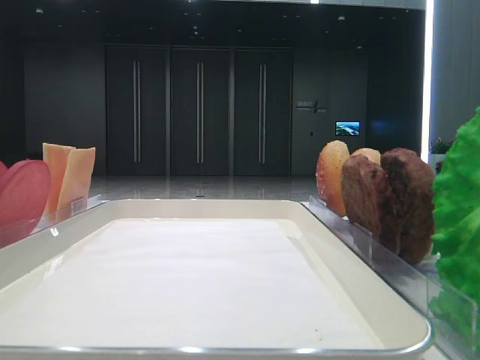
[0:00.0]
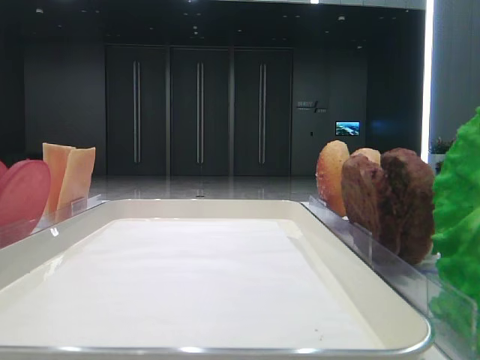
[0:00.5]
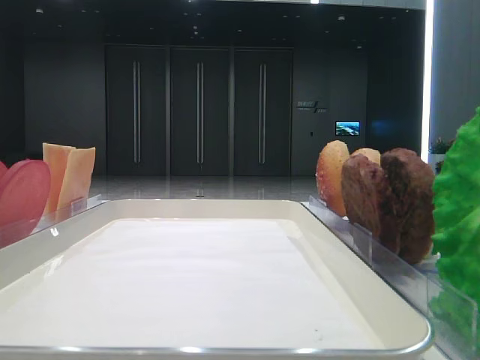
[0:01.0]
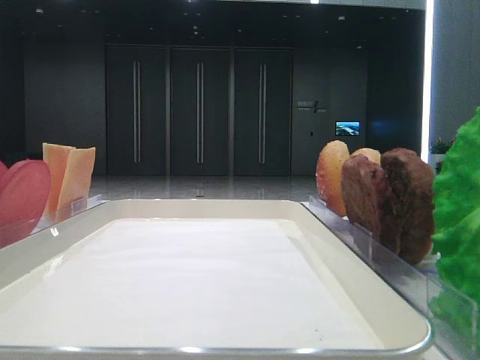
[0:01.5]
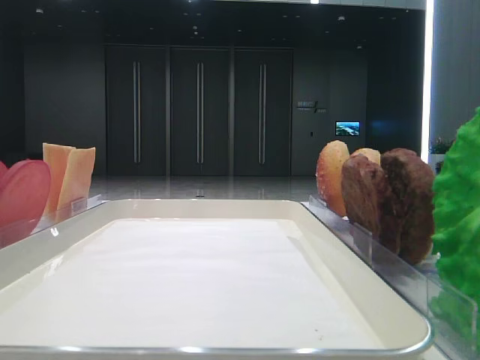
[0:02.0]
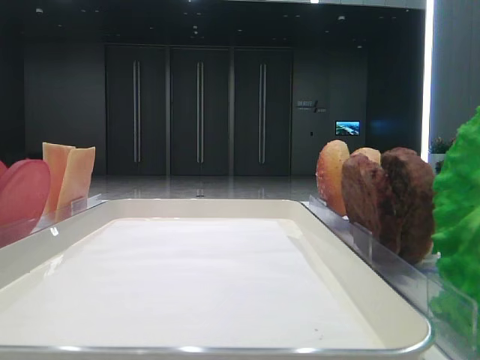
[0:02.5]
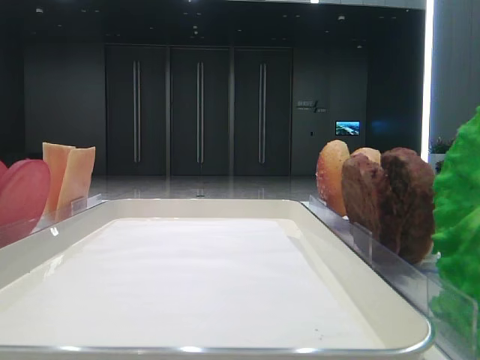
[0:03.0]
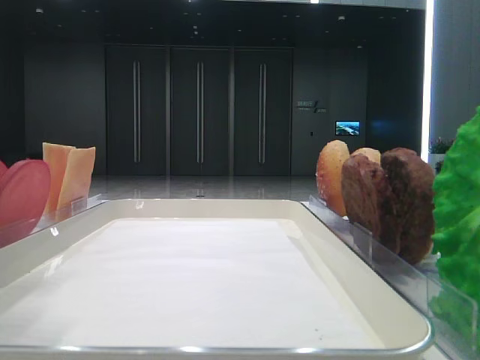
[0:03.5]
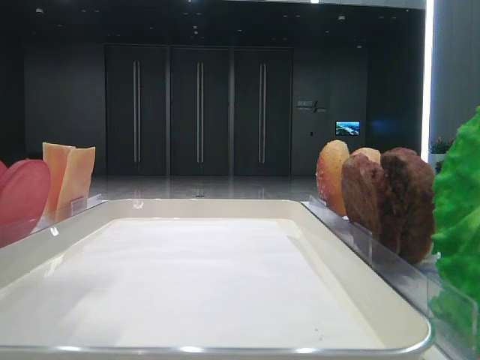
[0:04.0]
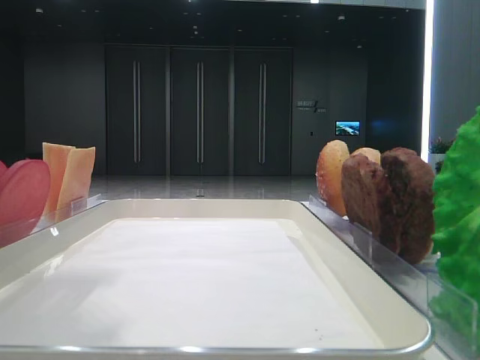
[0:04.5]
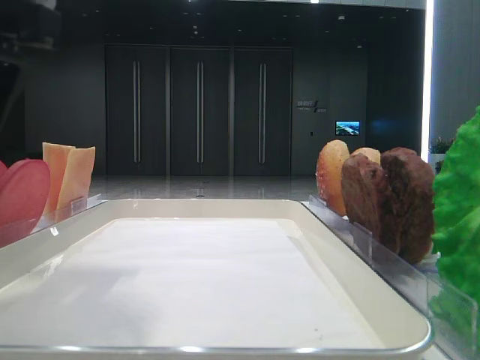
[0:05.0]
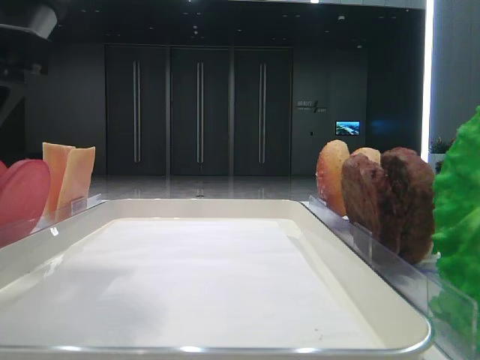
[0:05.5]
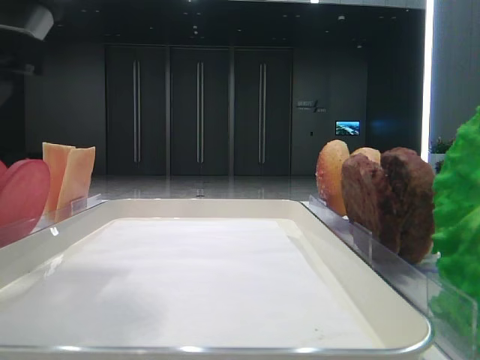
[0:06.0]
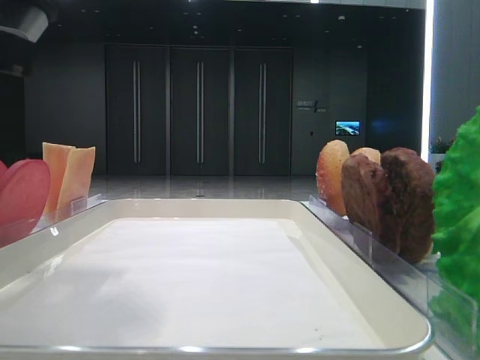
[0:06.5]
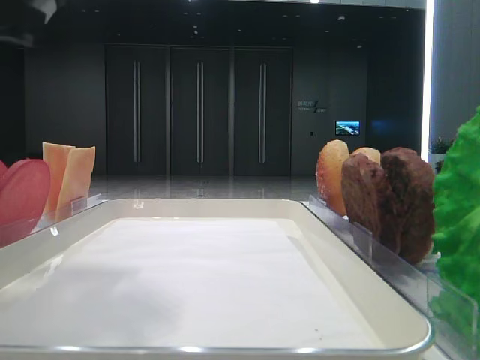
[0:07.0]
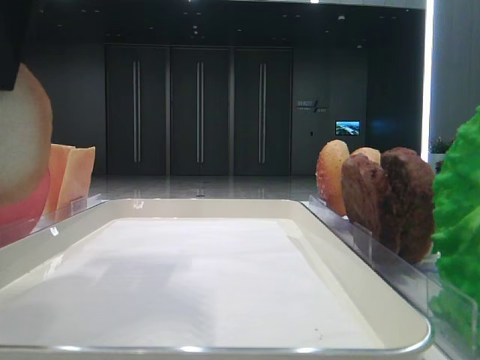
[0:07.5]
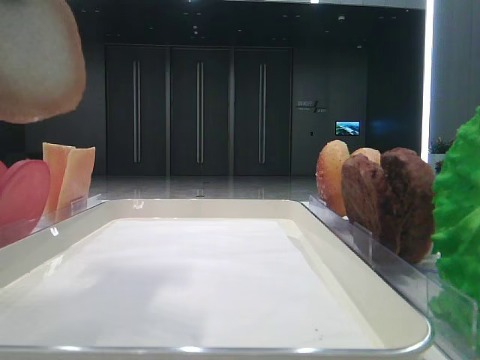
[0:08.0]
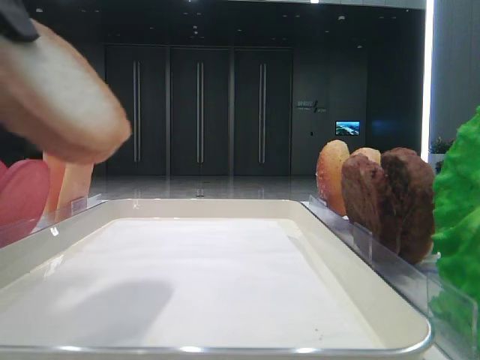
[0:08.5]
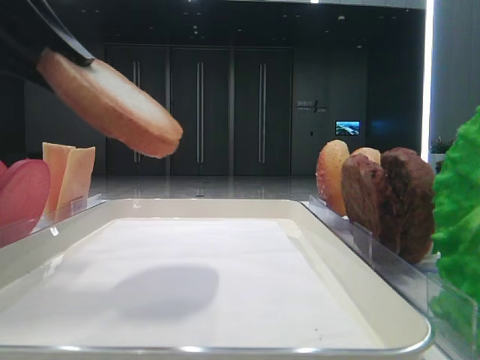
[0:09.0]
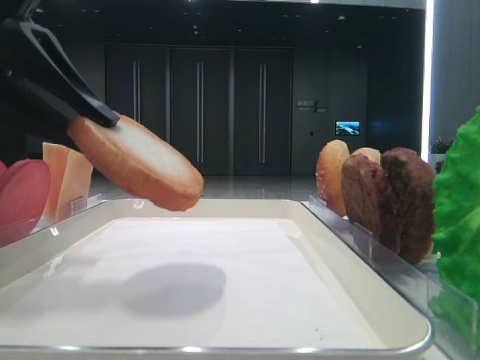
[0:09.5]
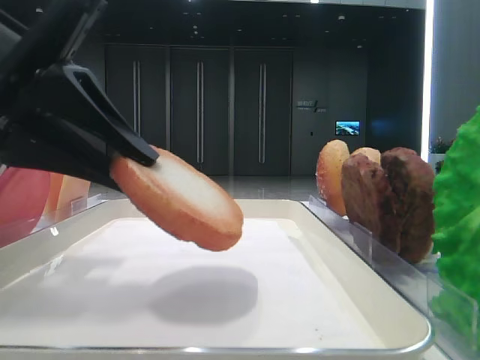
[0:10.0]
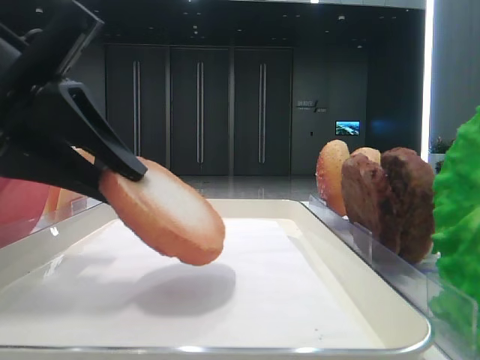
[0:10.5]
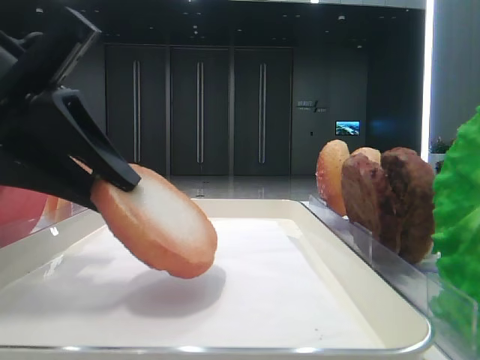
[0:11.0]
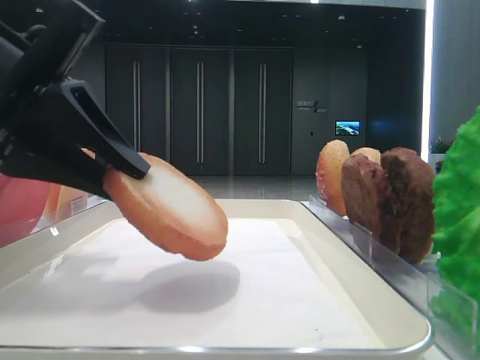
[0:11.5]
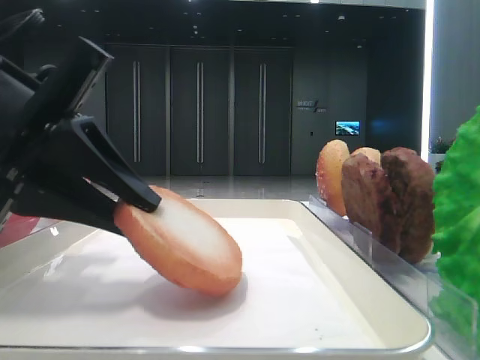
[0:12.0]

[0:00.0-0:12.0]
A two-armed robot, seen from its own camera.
Step, 0:00.0 to 0:06.5: Pick up the bottom bread with the left hand.
0:02.0 to 0:04.0: The left gripper travels to the right and forward by roughly 20 cm.
0:04.0 to 0:06.0: The left gripper goes about 5 cm downward.
0:06.0 to 0:08.0: The left gripper is displaced upward by approximately 10 cm, and closes its fingers.
0:08.0 to 0:10.0: The left gripper moves downward, some 15 cm.
0:10.0 to 0:12.0: The grippers move only a little.

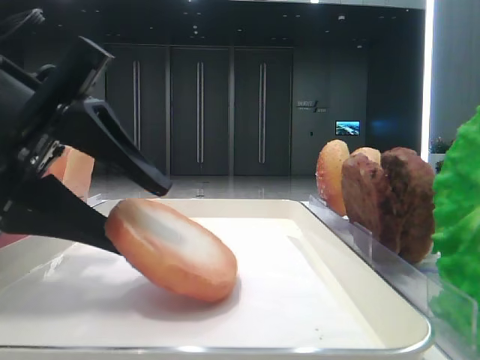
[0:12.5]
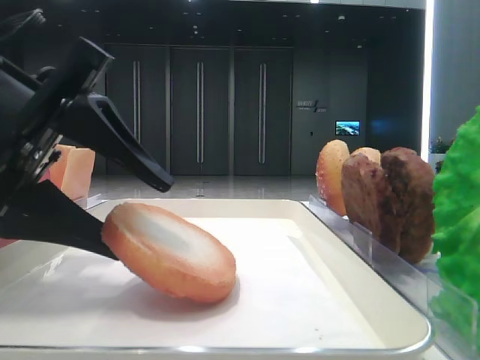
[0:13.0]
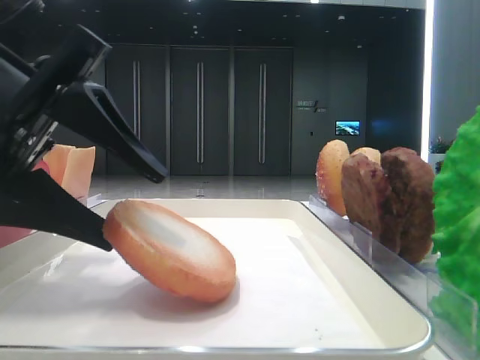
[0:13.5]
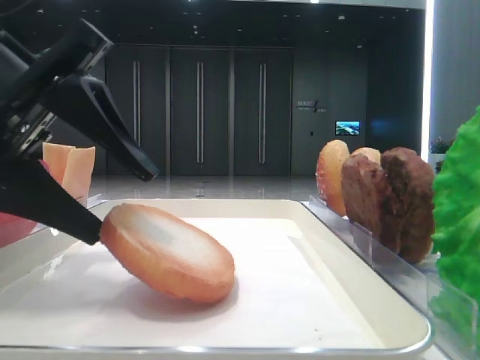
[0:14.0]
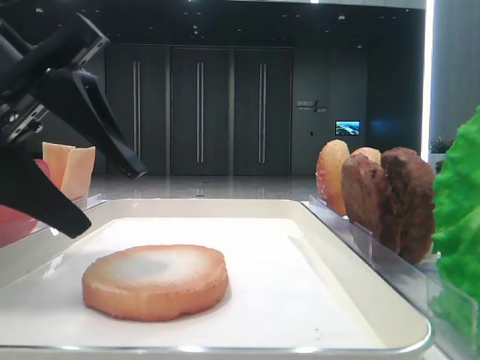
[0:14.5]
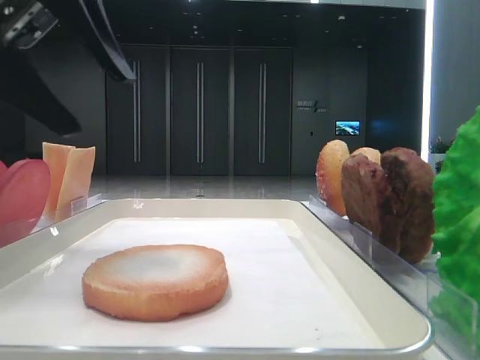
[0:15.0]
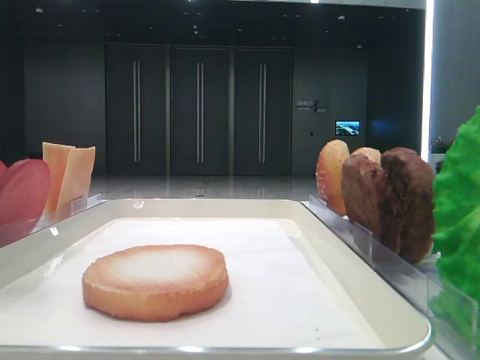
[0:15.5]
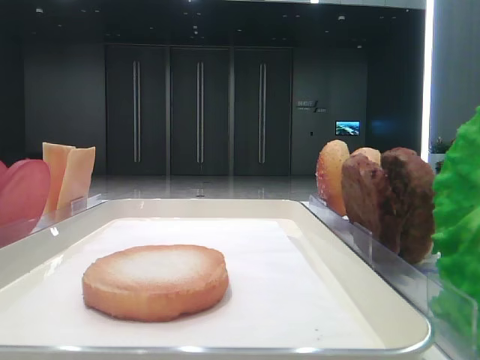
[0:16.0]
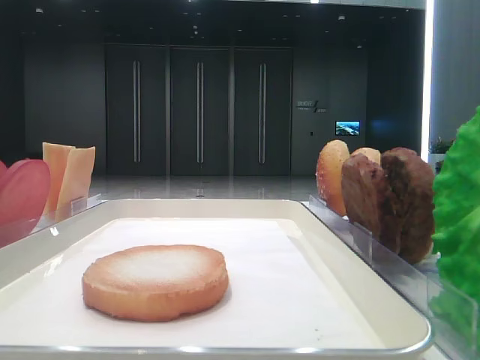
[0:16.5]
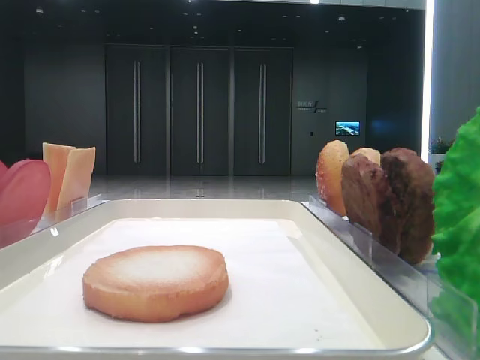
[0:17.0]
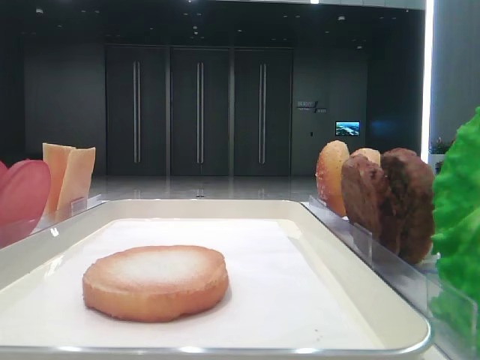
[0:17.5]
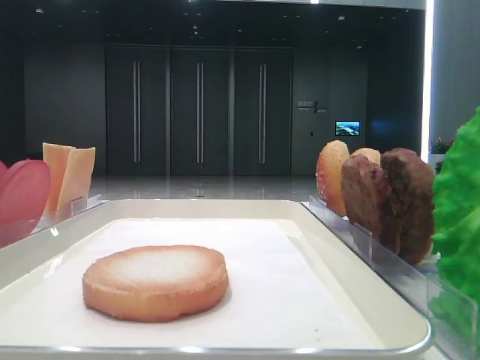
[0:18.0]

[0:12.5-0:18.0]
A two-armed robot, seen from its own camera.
0:12.5 to 0:14.5: The grippers stay close to where they were, moving slightly.
0:14.5 to 0:16.0: The left gripper shifts some 20 cm upward and to the left.
